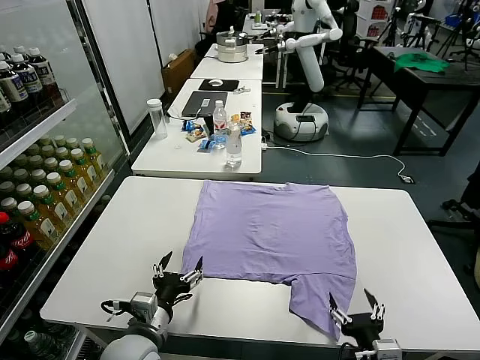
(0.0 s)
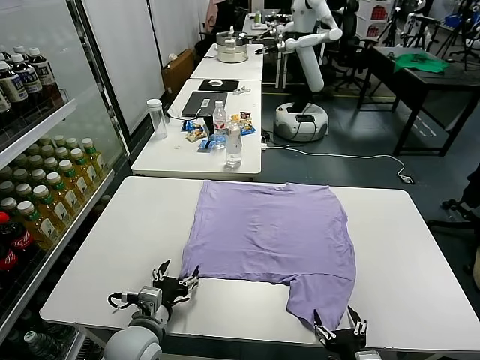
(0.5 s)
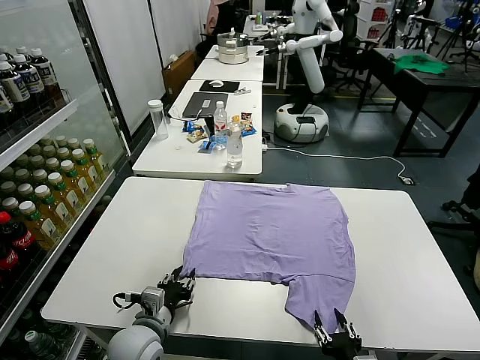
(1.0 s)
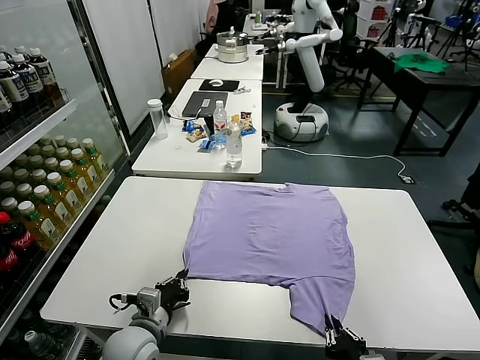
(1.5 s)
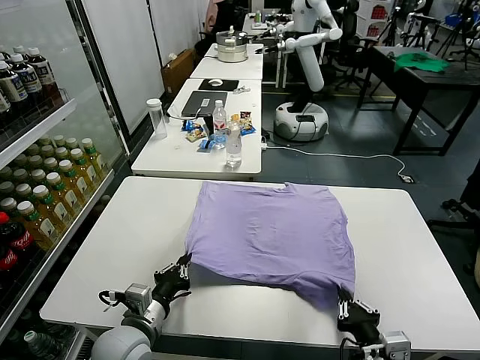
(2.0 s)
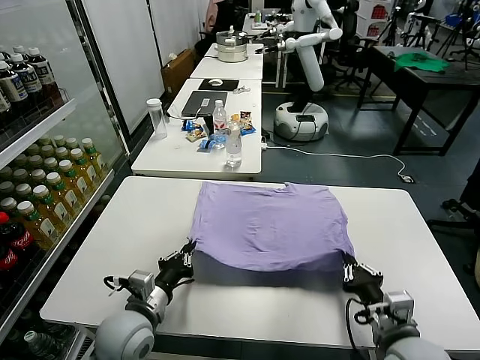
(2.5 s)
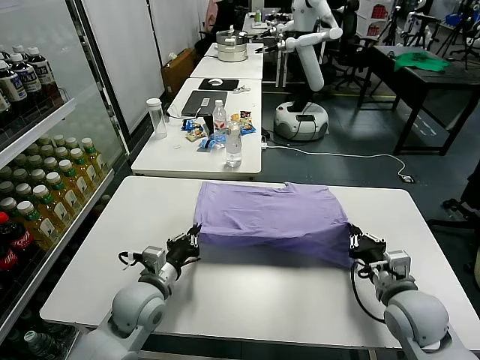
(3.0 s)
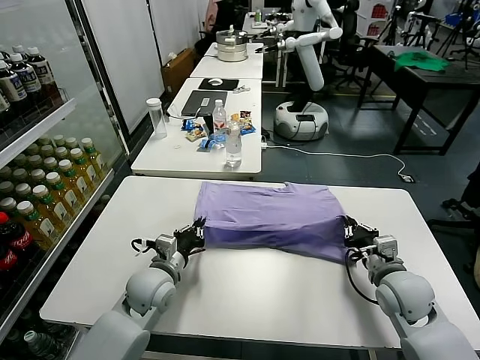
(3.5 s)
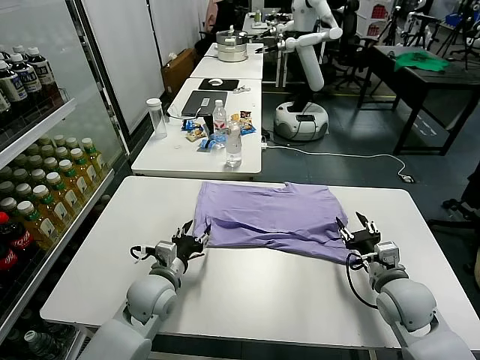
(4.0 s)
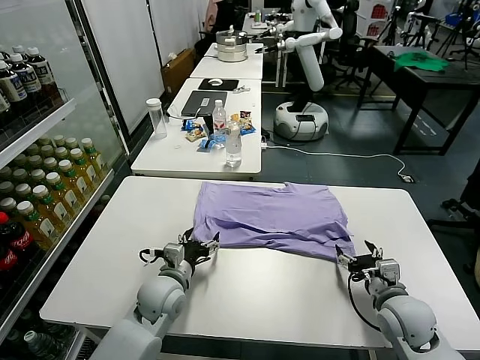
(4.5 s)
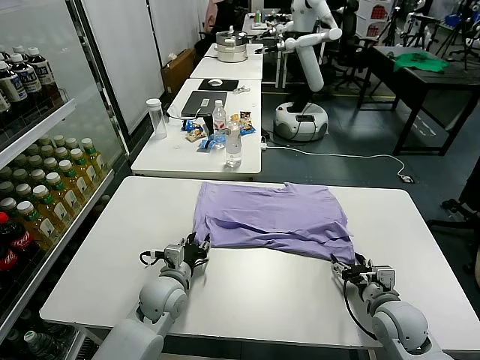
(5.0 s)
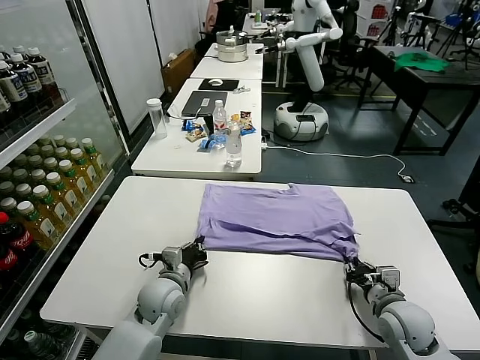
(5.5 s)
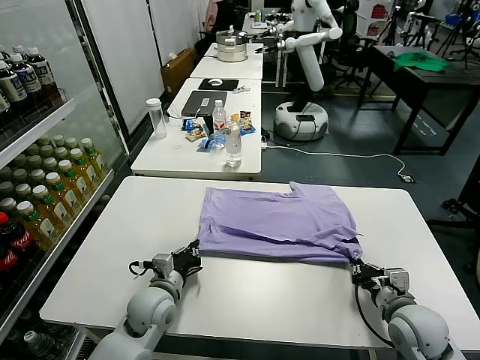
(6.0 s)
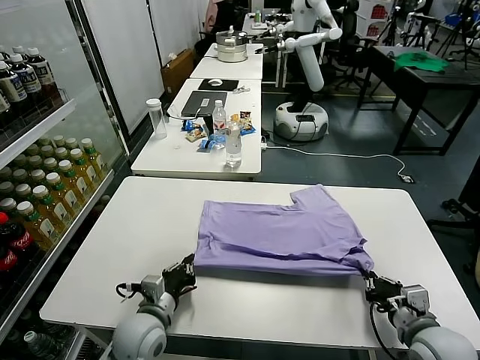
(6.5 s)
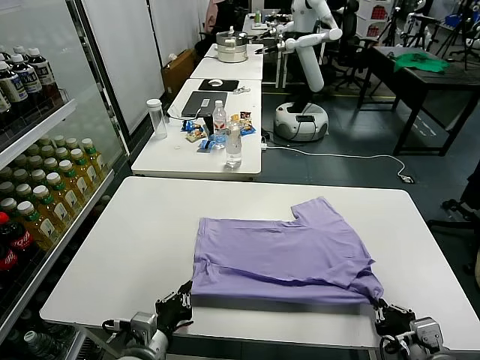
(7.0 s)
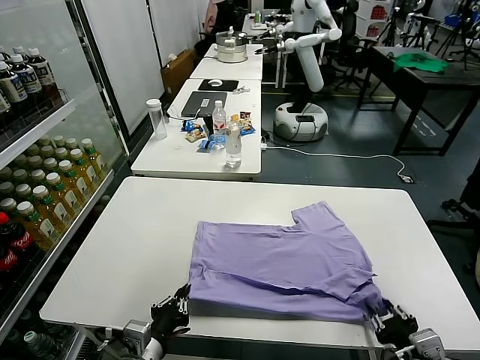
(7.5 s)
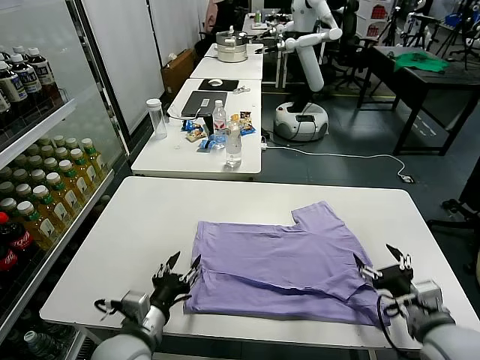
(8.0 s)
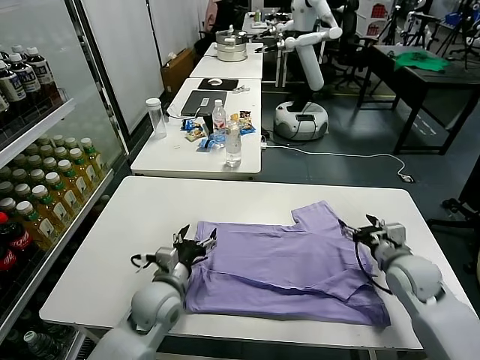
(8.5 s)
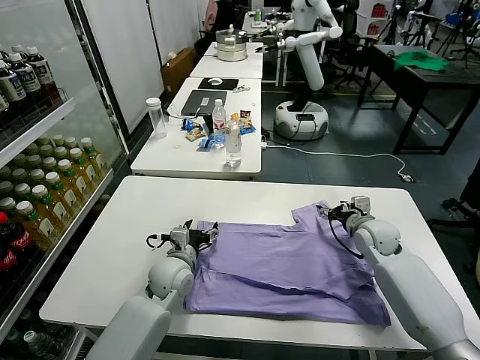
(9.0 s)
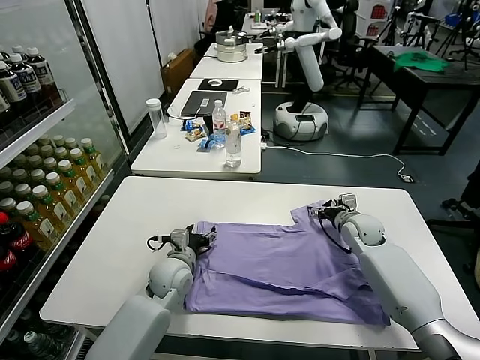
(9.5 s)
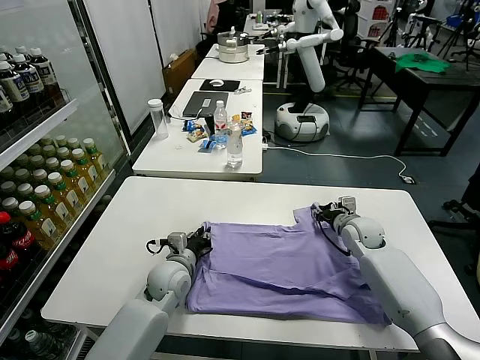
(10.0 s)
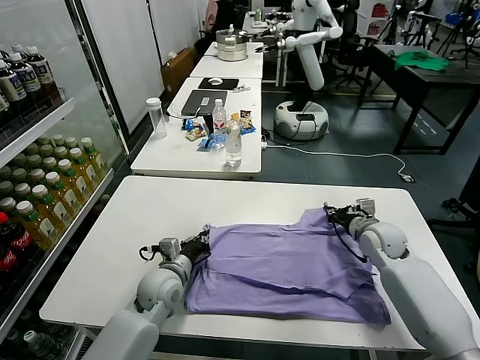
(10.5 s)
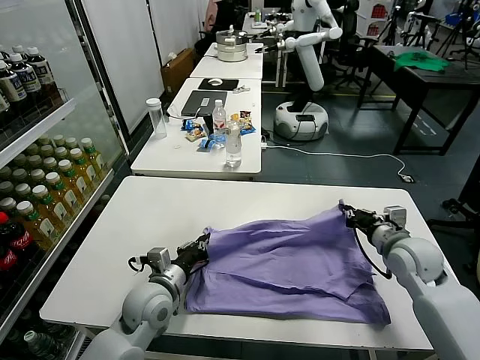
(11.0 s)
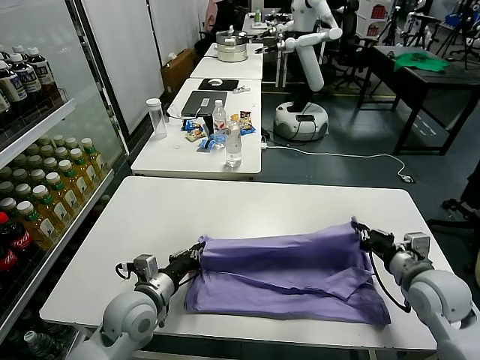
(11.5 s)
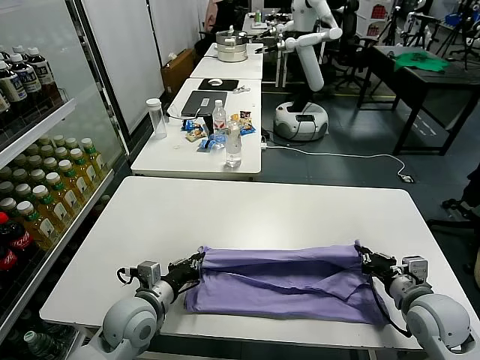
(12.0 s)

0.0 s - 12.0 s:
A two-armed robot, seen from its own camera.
Task of the whole recording: fold and organize the clothes.
Step, 0.0 s - 1.5 s: use both grippers simultaneously to clamp the lower edge of the clothing fabric.
Step, 2.0 s - 3.5 s: use both grippers to drag the lower edge of the fabric forward and fold it over the upper edge.
Step, 4.0 s - 7.5 s: Drag the clothes downward with both gripper.
Step, 8.0 s - 10.0 s: use both grippers simultaneously to clamp the upper edge of the clothing fabric.
2.0 s - 4.0 s: Both grippers travel together forward, roughly 15 cm. The right gripper opens; the left gripper opens its fingers.
4.0 s - 6.0 s: The left gripper closes its fingers. Meanwhile the right gripper changes place by some 5 cm, and closes up.
6.0 s - 8.0 s: The left gripper travels backward and upward by roughly 10 cm, and opens its fingers. The right gripper moves some 10 cm backward and comes back, and opens.
8.0 s - 10.0 s: Both grippers move forward, some 20 cm. The left gripper closes its fingers. The right gripper closes its fingers.
10.0 s - 12.0 s: The left gripper shifts approximately 10 cm backward. The right gripper goes about 25 cm backward.

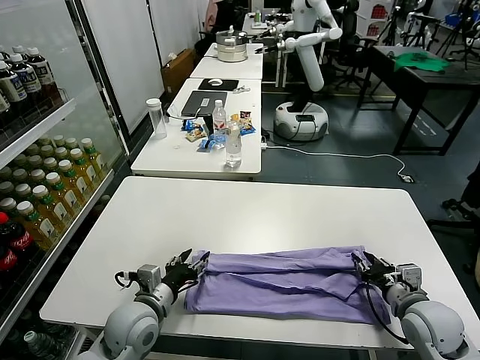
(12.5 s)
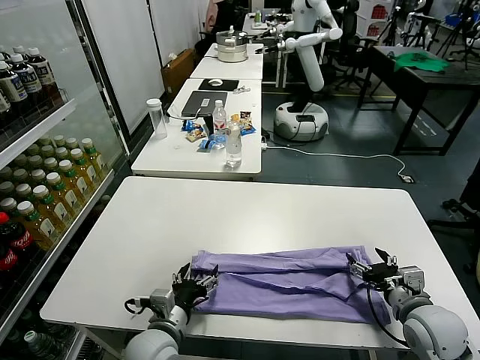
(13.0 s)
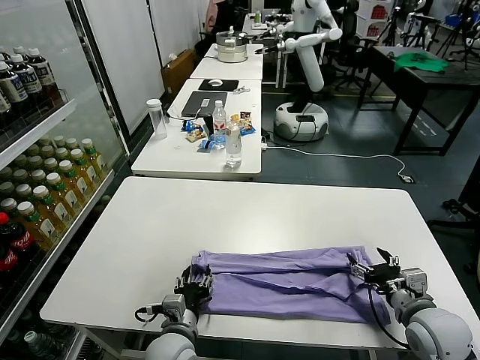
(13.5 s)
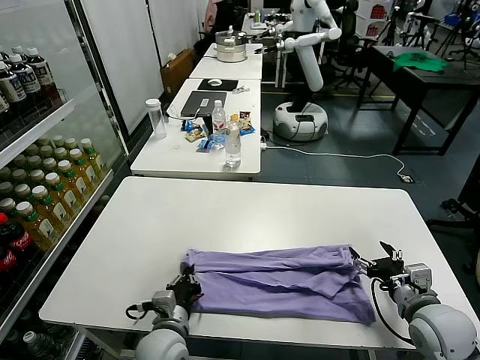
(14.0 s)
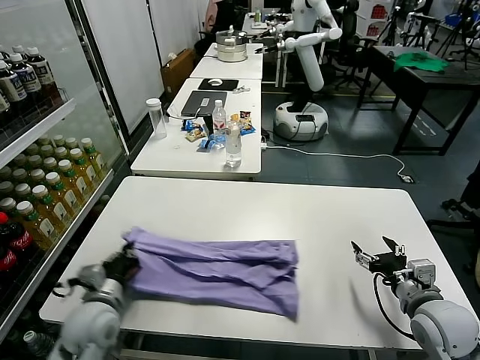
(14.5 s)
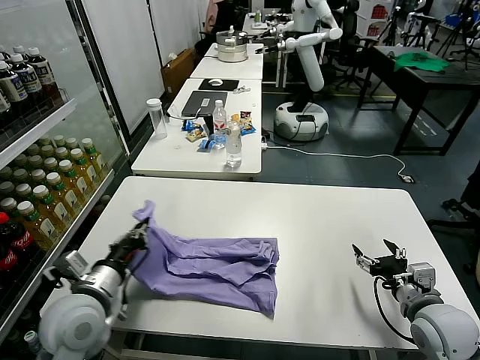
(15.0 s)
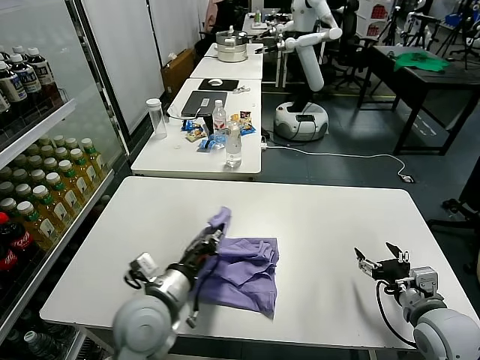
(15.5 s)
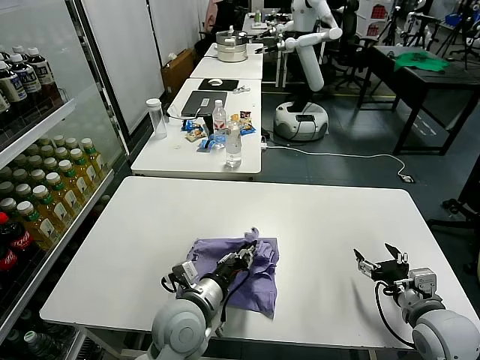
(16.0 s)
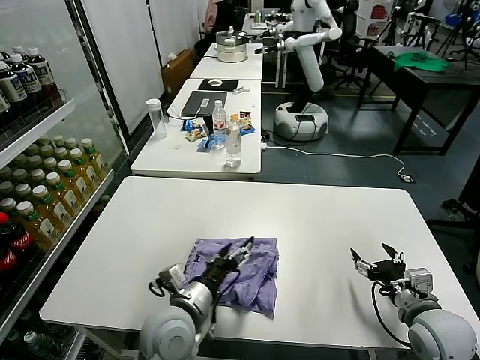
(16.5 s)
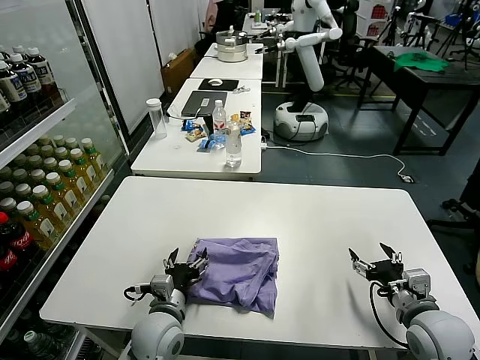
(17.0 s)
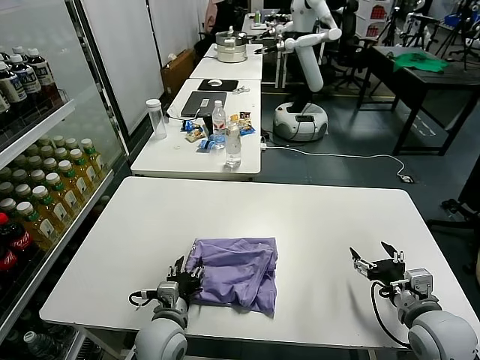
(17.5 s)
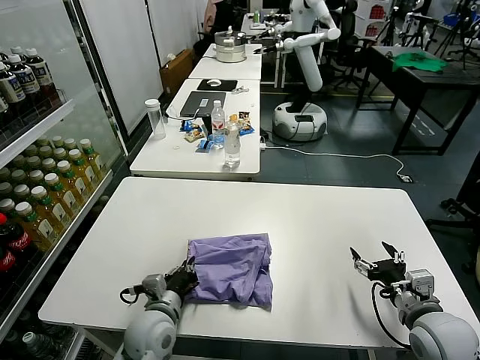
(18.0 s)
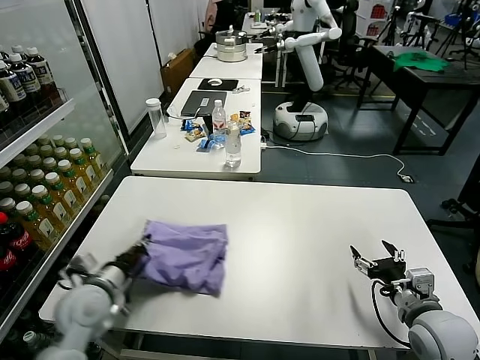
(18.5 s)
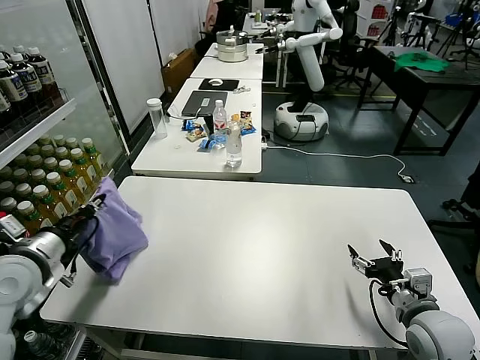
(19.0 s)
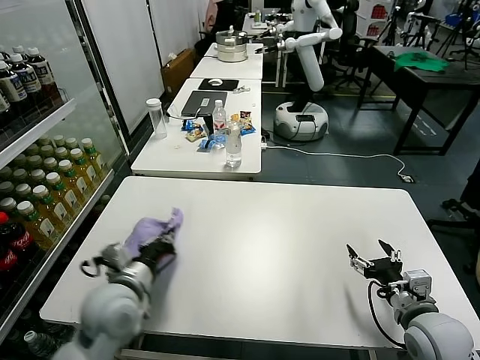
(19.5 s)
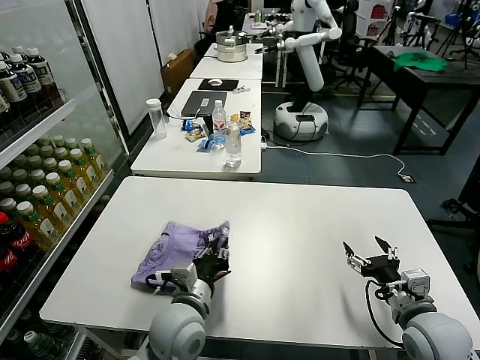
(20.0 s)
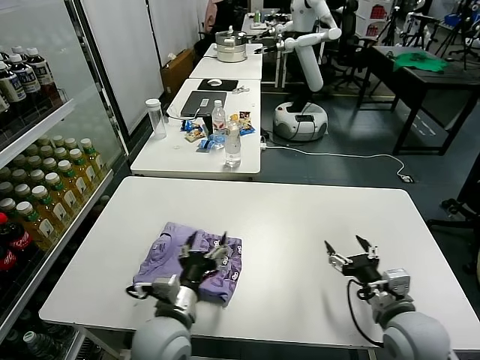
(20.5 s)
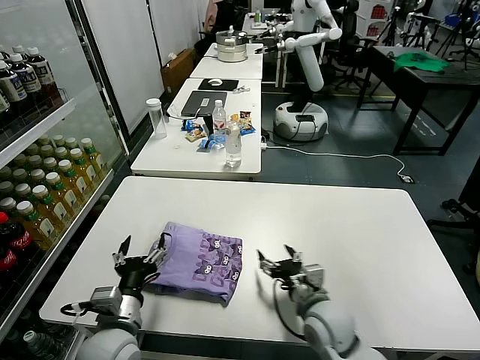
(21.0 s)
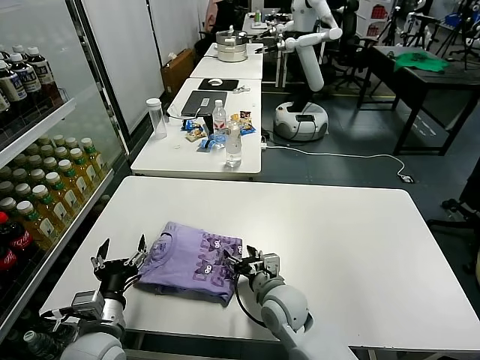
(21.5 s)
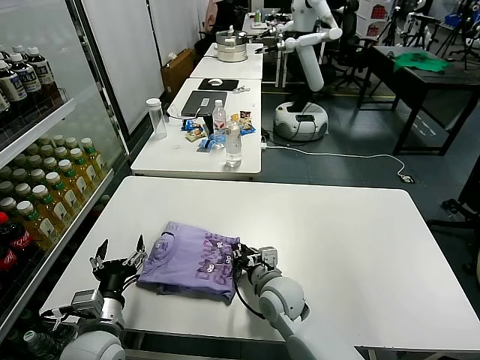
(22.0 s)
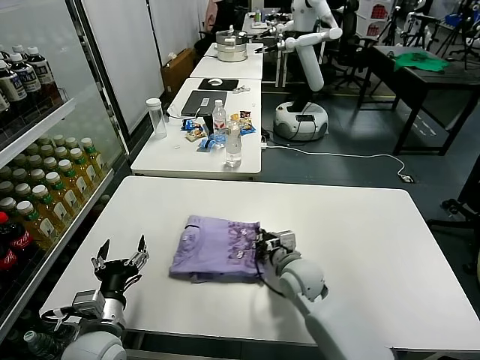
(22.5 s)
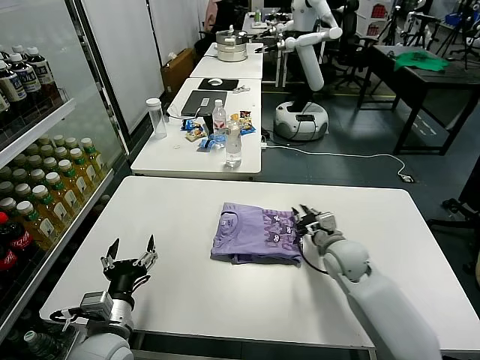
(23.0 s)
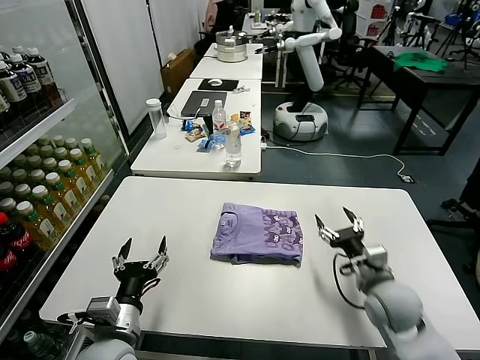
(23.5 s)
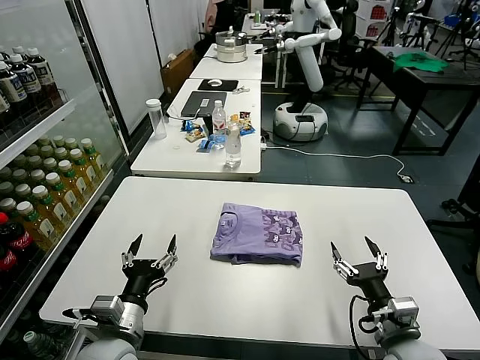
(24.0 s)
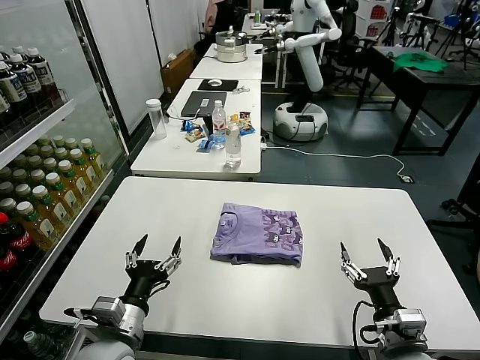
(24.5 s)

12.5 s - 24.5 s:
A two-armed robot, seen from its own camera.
Task of the whole recording: fold and organize the clothes.
Step, 13.0 s - 13.5 s: use the left gripper to clamp the left edge of the fabric.
Step, 14.0 s - 16.5 s: use the left gripper to drag the left edge of the fabric to the left and folds it over the right edge.
Step, 17.0 s - 20.0 s: Flip the folded clothes over with left gripper.
Step, 21.0 s - 23.0 s: Drag the clothes to the center of the table.
12.5 s - 14.5 s: The left gripper shifts about 10 cm to the left, and closes its fingers. Meanwhile the right gripper opens up.
14.5 s - 16.5 s: The left gripper moves to the right, approximately 15 cm, and opens up.
16.5 s - 18.5 s: The left gripper is displaced to the left by roughly 15 cm, and closes up.
18.5 s - 20.5 s: The right gripper is displaced to the left by approximately 5 cm. Meanwhile the left gripper is displaced to the right by some 15 cm, and opens up.
20.5 s - 22.5 s: The right gripper is displaced to the left and forward by roughly 25 cm, and closes its fingers, while the left gripper goes about 15 cm to the left.
22.5 s - 24.5 s: The right gripper is displaced backward and to the right by some 25 cm, and opens.
